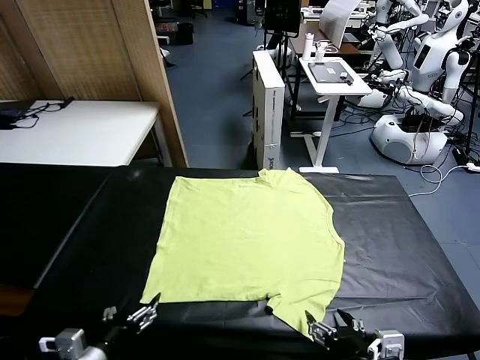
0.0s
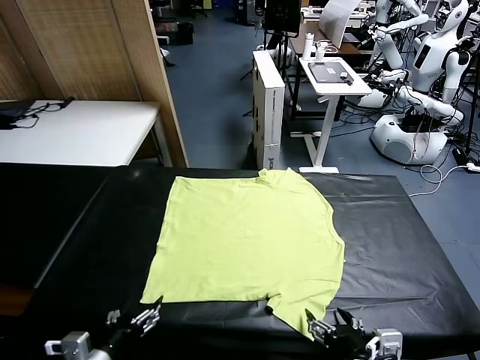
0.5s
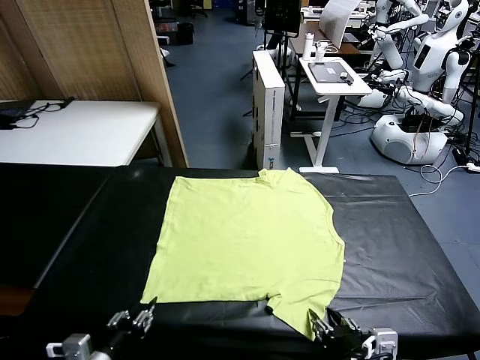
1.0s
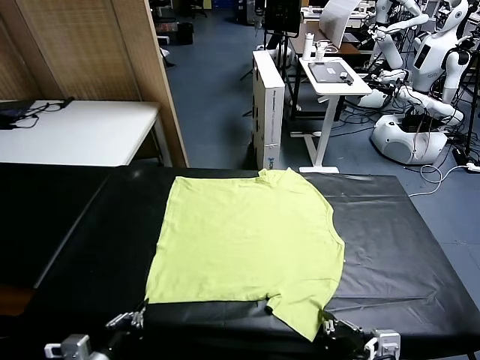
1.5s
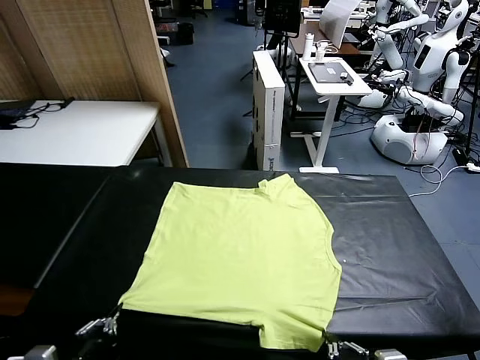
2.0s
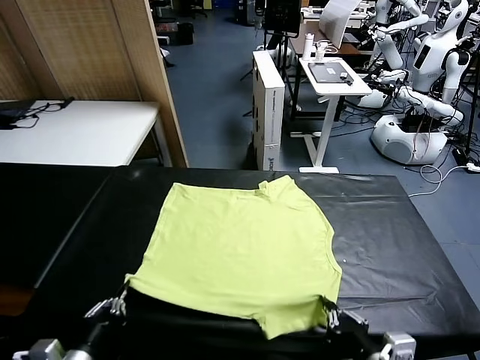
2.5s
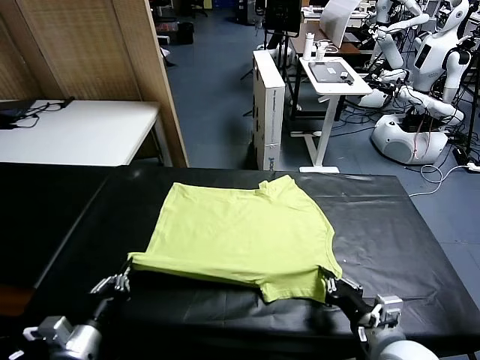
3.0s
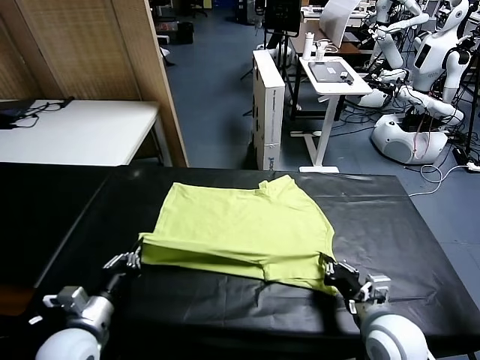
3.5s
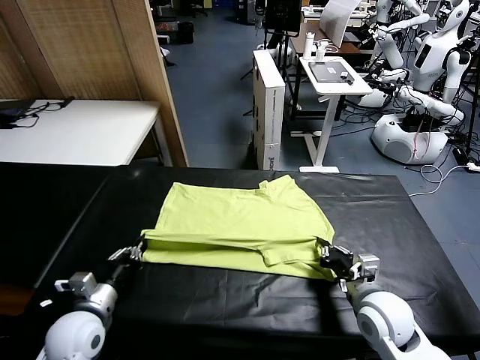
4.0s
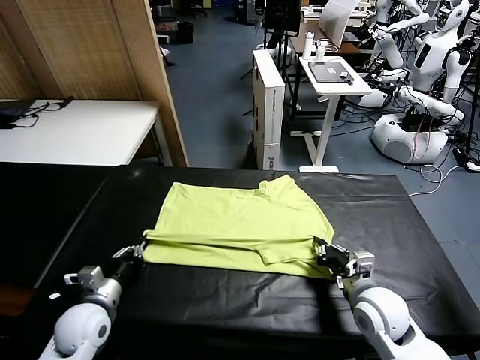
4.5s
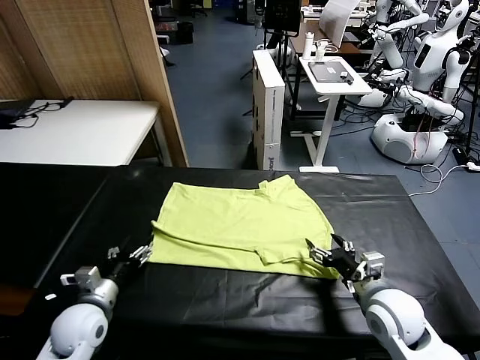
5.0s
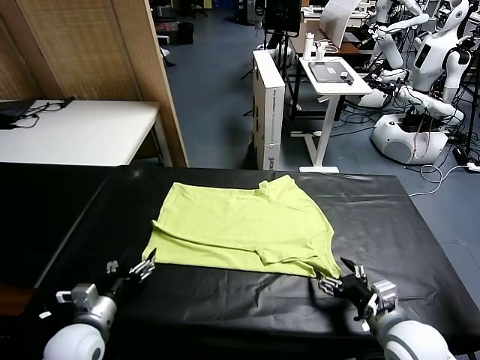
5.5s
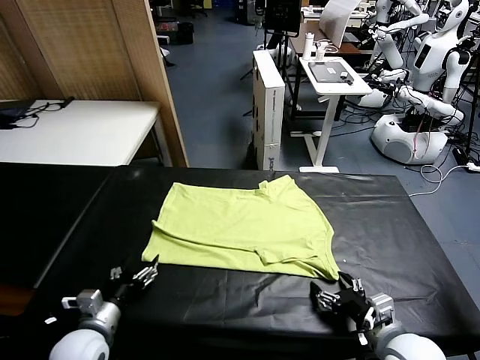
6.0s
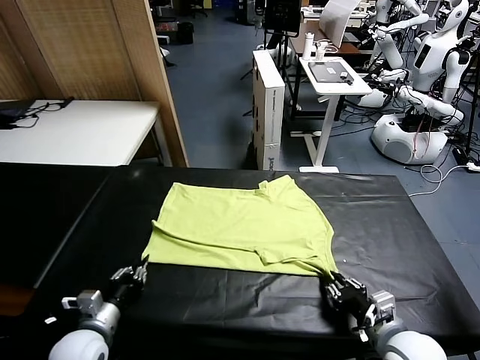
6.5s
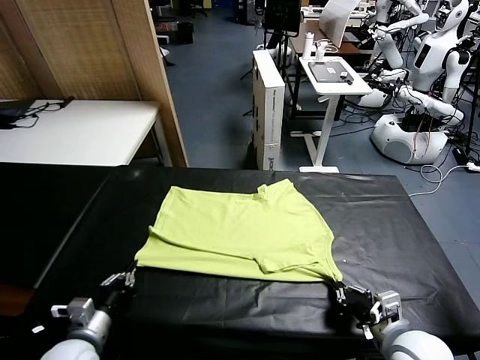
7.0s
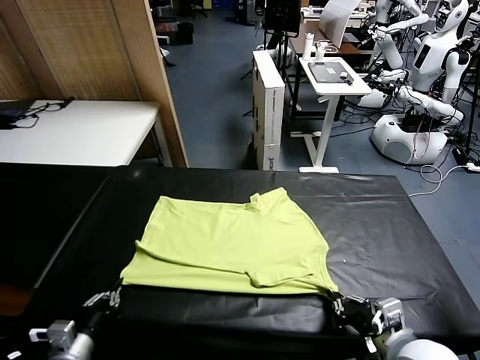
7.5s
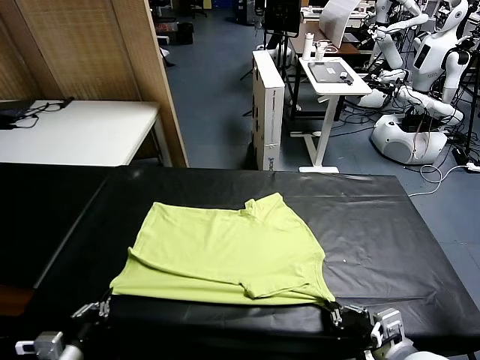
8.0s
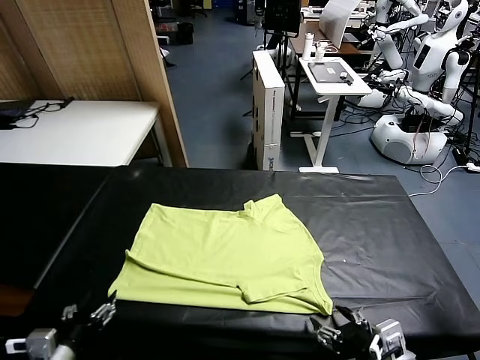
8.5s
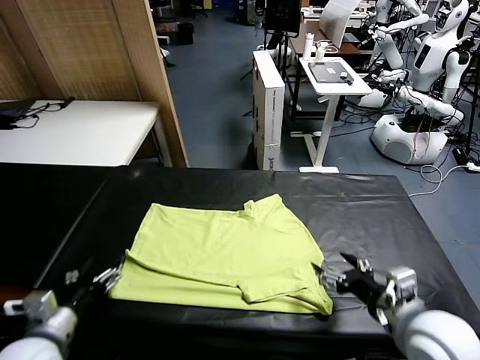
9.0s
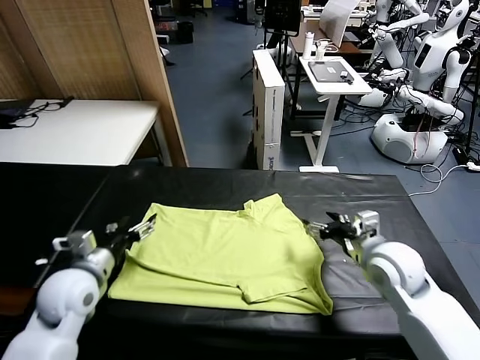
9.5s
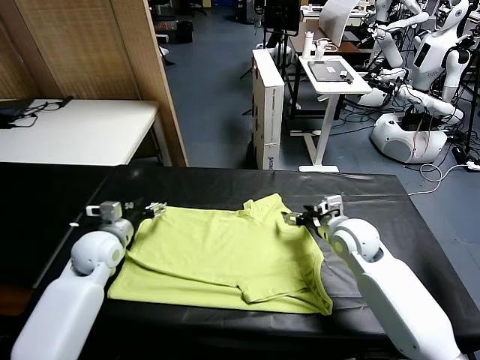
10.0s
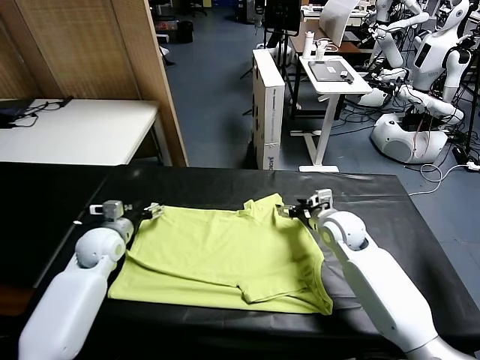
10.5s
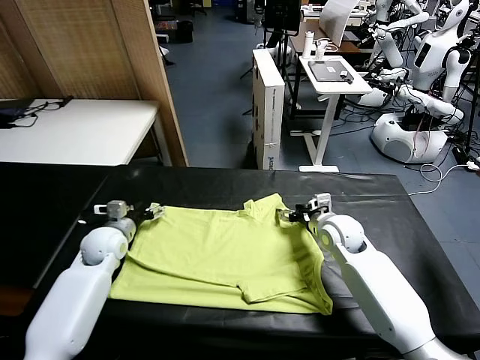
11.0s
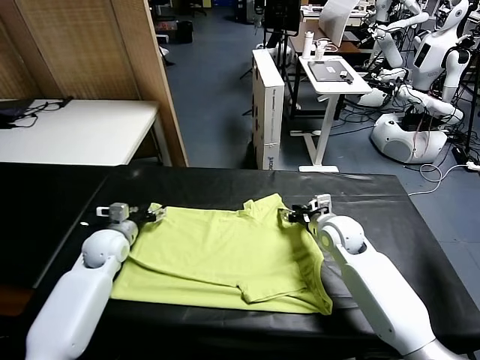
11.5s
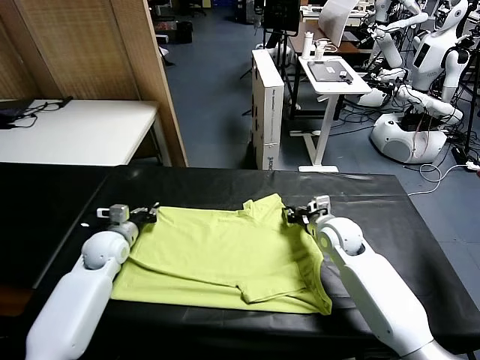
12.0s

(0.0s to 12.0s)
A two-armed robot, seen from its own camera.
Task of the whole recording: fold and organize the clothes.
Step, 0.0s - 1.5s: use both grippers simultaneously to clamp the lower edge of the clothing fabric.
Step, 2.0s - 4.5s: use both grippers to drag the lower edge of the fabric forward and fold it over the upper edge.
Step, 5.5s - 8.5s: Drag the clothes downward with both gripper.
2.0s - 4.0s: Both grippers move forward, approximately 15 cm.
4.0s - 6.0s: The left gripper opens up; the right gripper moves backward, approximately 10 cm, and opens up.
6.0s - 8.0s: The right gripper travels upward by some 5 cm, and closes, while the left gripper is displaced backward by approximately 10 cm, and closes up.
8.0s - 10.0s: Both grippers travel together forward, approximately 30 cm. The right gripper opens up. Meanwhile the left gripper opens.
10.0s - 12.0s: The right gripper closes its fingers; the left gripper closes.

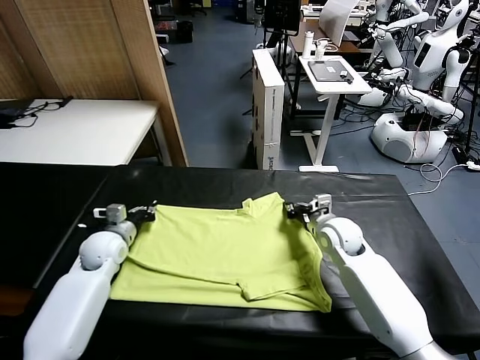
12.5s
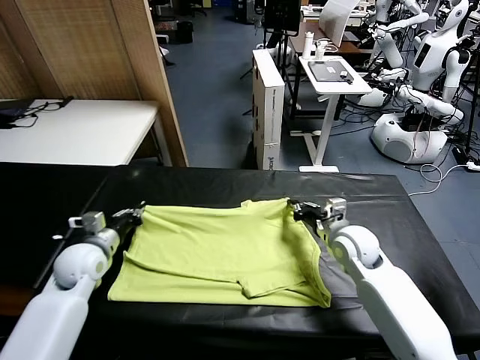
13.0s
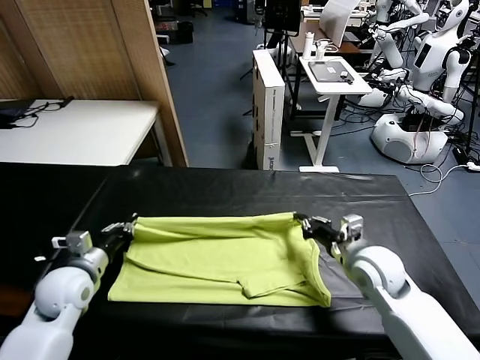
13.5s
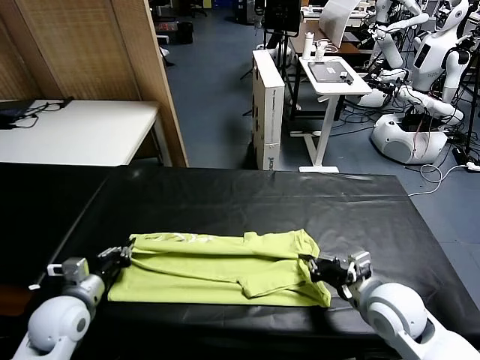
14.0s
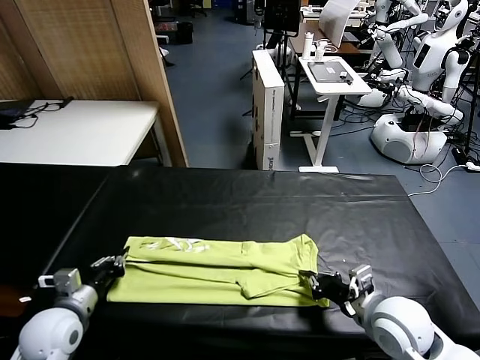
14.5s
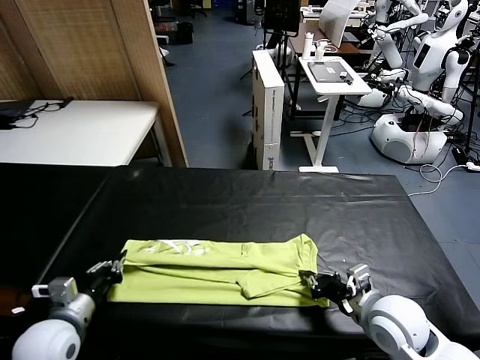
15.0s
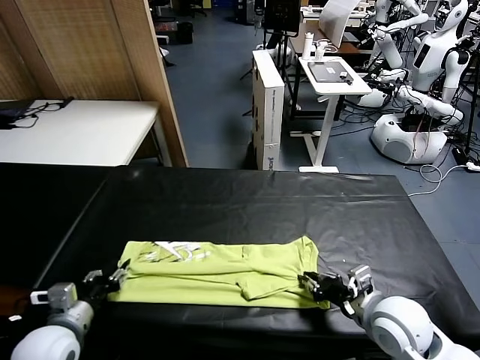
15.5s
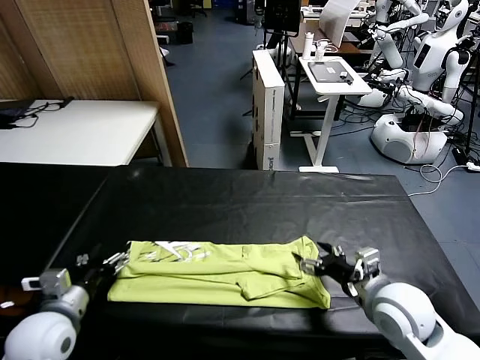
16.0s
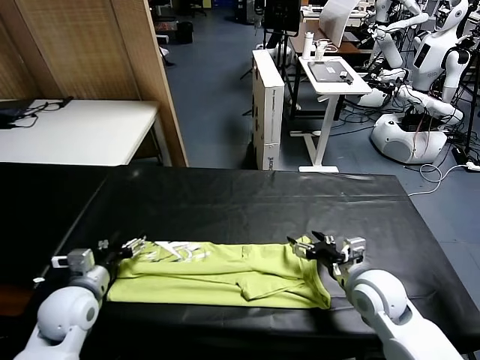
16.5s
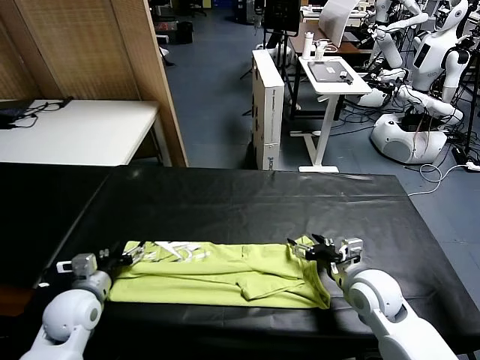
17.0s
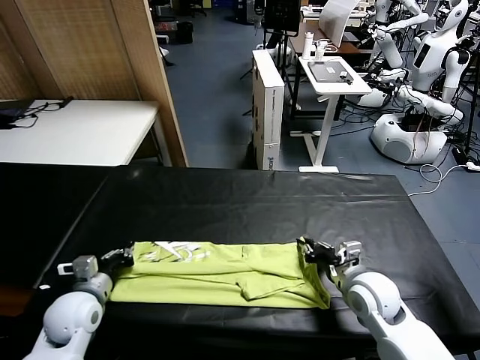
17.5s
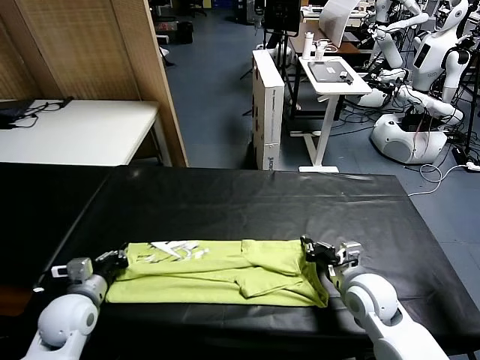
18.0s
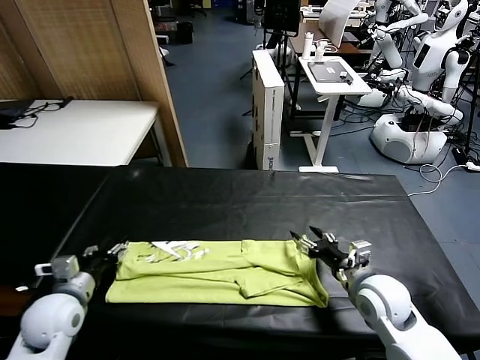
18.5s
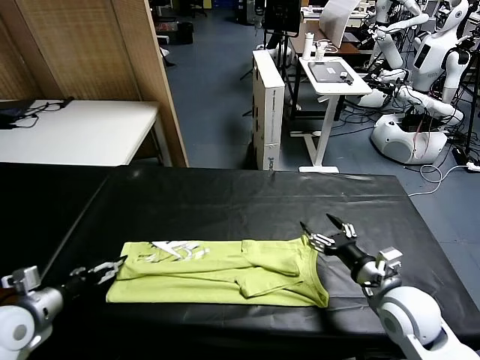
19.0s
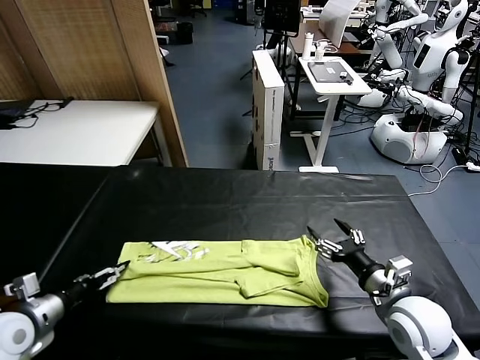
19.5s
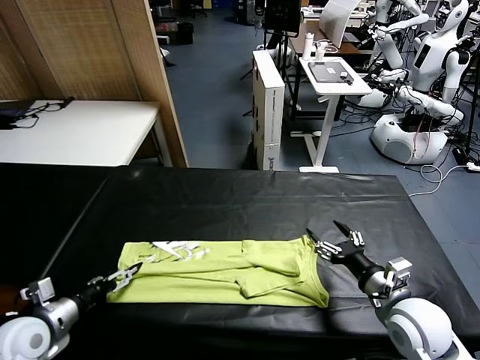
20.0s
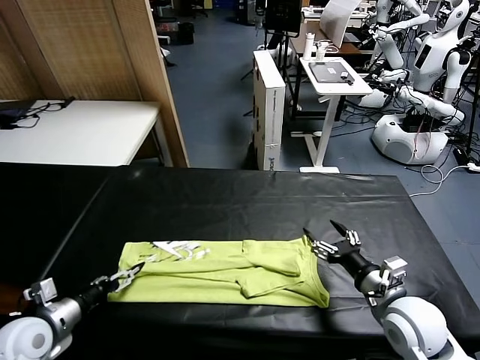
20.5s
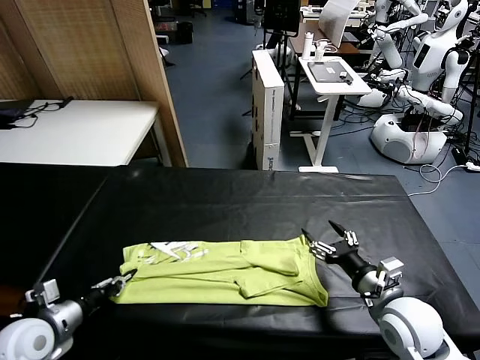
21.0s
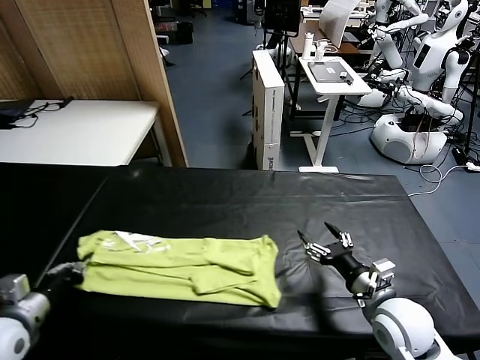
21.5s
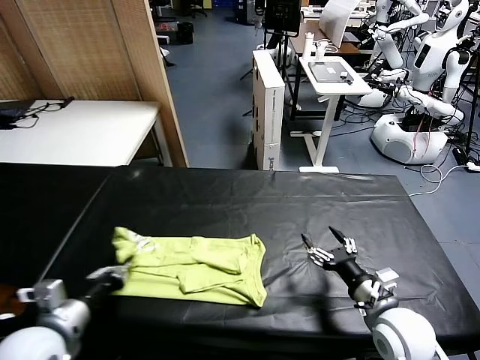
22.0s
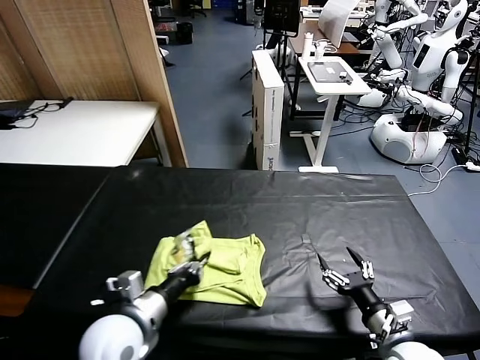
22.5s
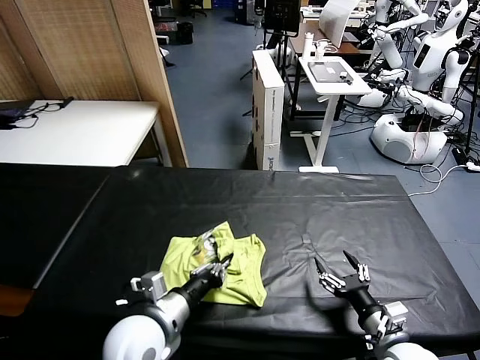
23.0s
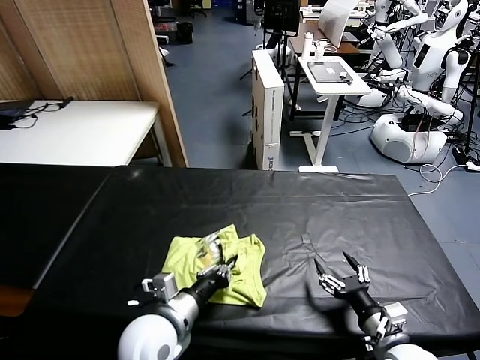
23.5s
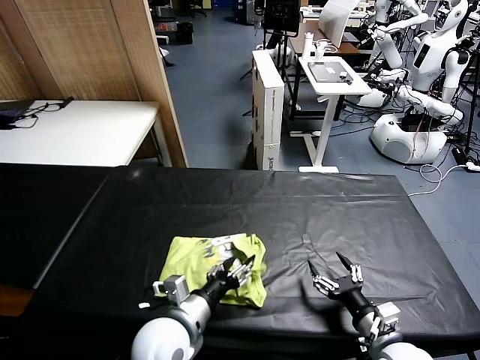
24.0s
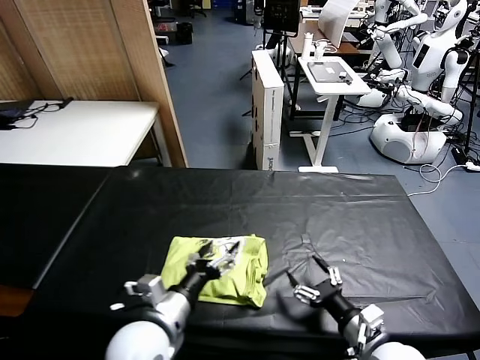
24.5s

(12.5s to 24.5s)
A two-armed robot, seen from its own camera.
Task of the whole recording: fold and organize the clothes.
Step, 12.5s - 15.5s: use both grippers to drag the upper edge of the fabric backward and fold it over the lower edge.
Step, 16.0s - 20.5s: use the left gripper to clamp the left edge of the fabric.
Step, 21.5s - 24.0s: use the left gripper to drag the left edge of the fabric to the left and folds it over the right edge.
12.5s - 14.5s: The grippers both shift backward by approximately 20 cm.
14.5s - 16.5s: The right gripper heads forward, covering some 5 cm, and opens up. Meanwhile the left gripper opens.
16.5s - 18.5s: The left gripper closes its fingers; the right gripper closes, then opens again.
18.5s - 20.5s: The left gripper changes place by some 5 cm, and opens its fingers. The right gripper travels backward by about 5 cm.
20.5s - 22.5s: The right gripper shifts approximately 10 cm backward and downward. The left gripper shifts approximately 20 cm to the right, and closes its fingers.
22.5s - 24.5s: The left gripper travels to the right by about 5 cm, and opens its fingers.

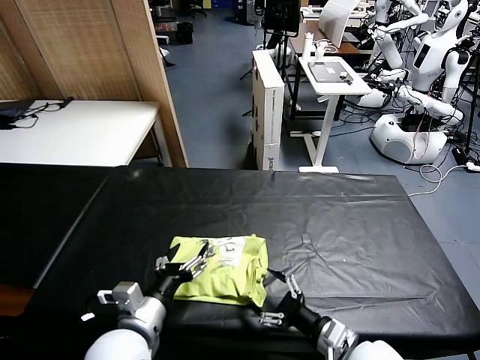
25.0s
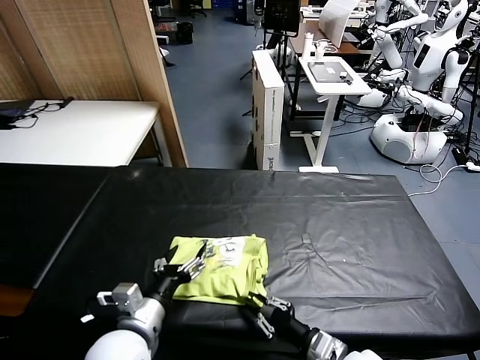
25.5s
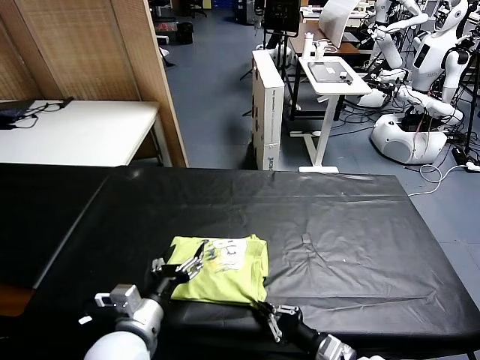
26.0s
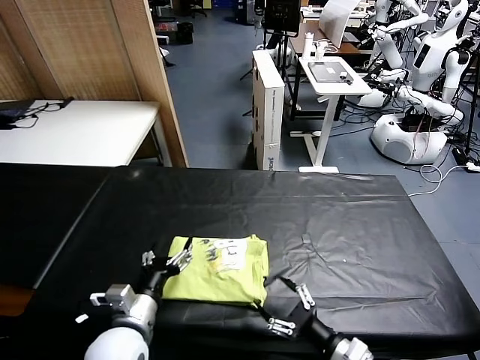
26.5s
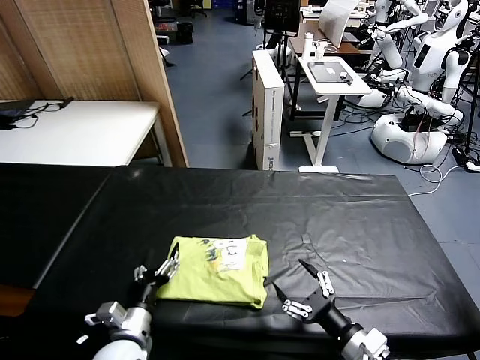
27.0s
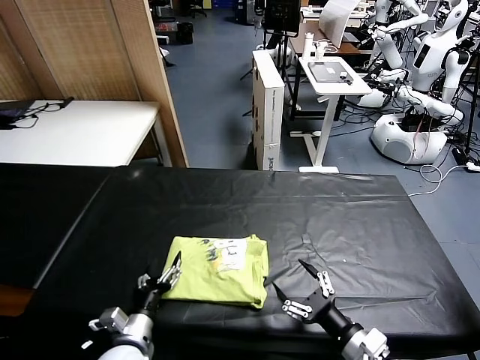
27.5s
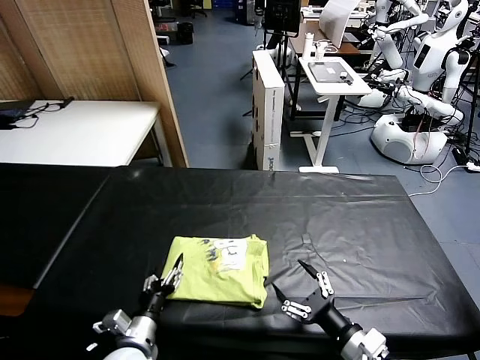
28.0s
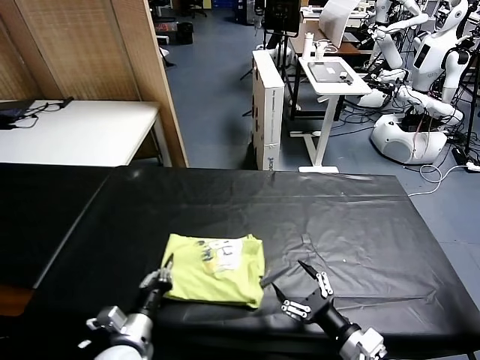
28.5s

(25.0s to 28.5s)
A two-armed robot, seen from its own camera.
Task of the whole recording: fold and organize the clothes.
25.0s - 27.0s: The left gripper is displaced downward by roughly 10 cm, while the right gripper closes and opens again.
27.0s - 28.5s: The left gripper closes.
